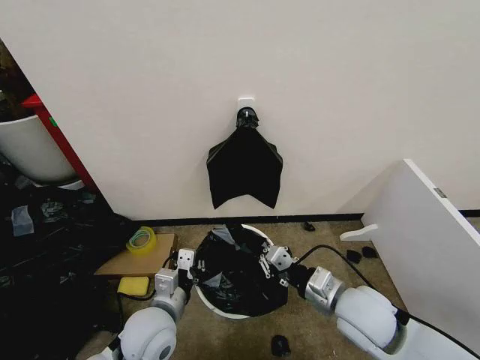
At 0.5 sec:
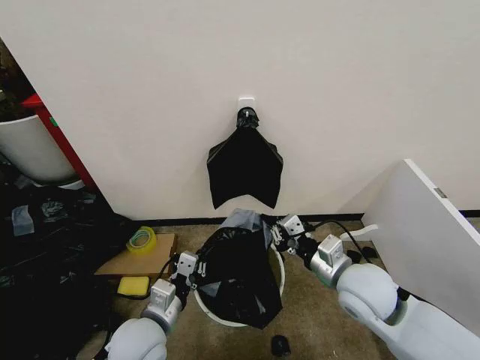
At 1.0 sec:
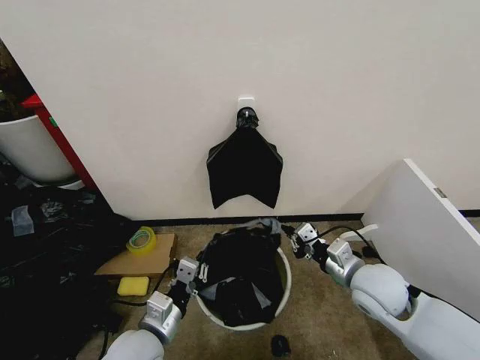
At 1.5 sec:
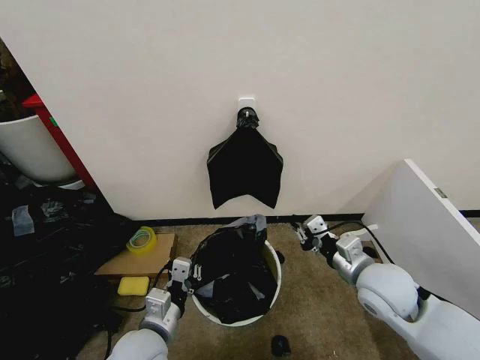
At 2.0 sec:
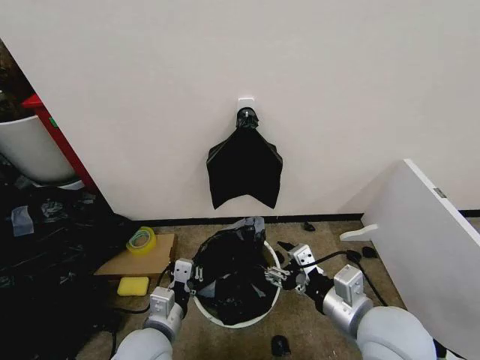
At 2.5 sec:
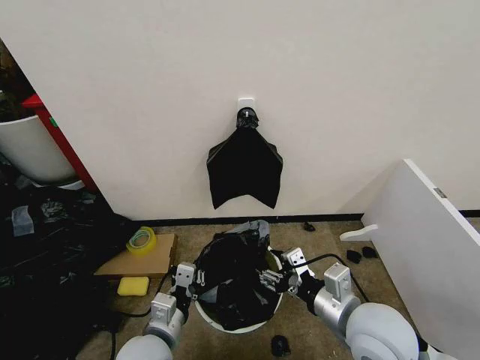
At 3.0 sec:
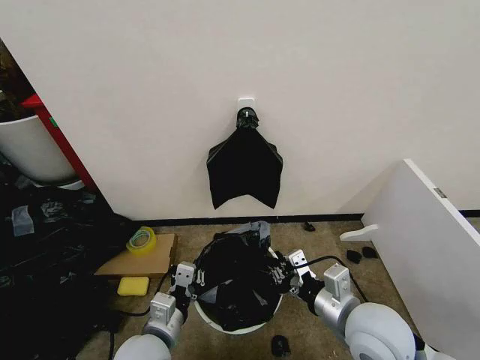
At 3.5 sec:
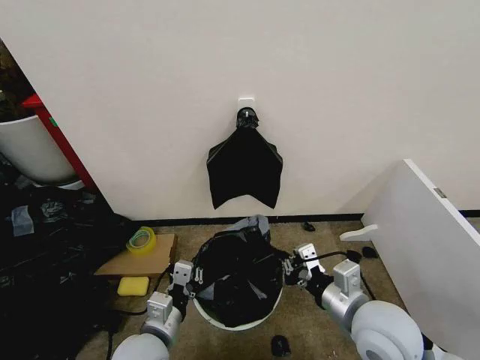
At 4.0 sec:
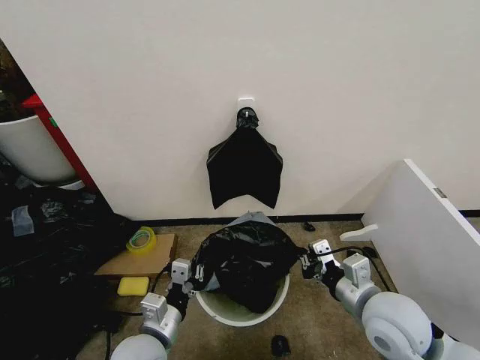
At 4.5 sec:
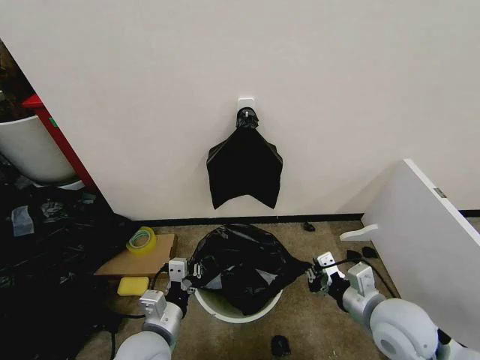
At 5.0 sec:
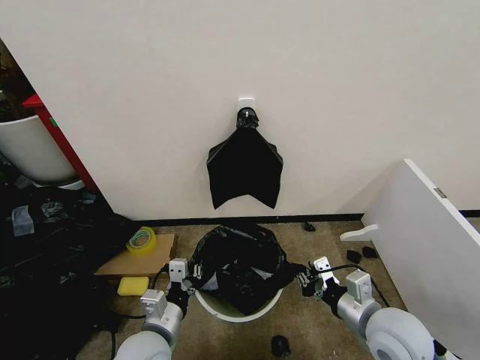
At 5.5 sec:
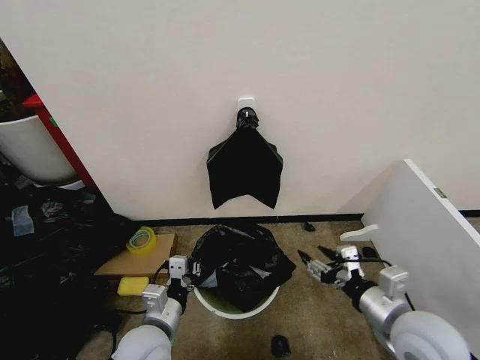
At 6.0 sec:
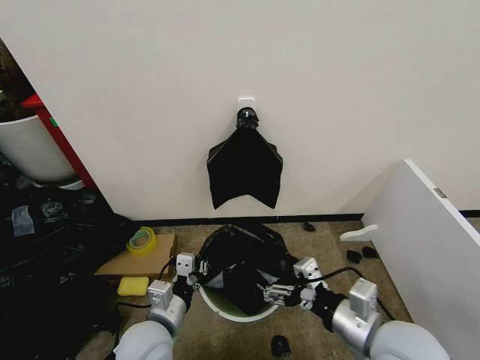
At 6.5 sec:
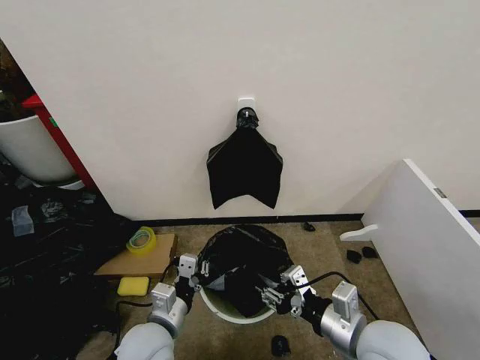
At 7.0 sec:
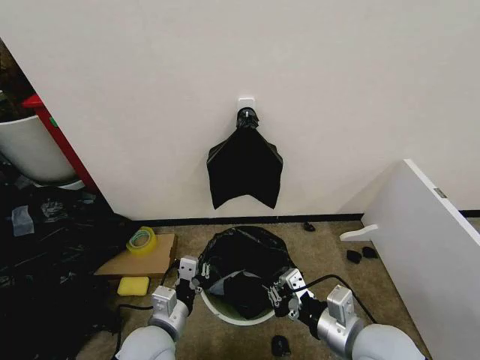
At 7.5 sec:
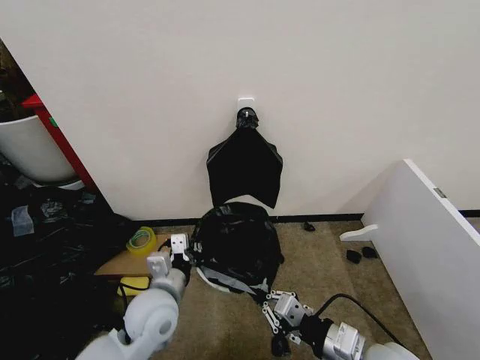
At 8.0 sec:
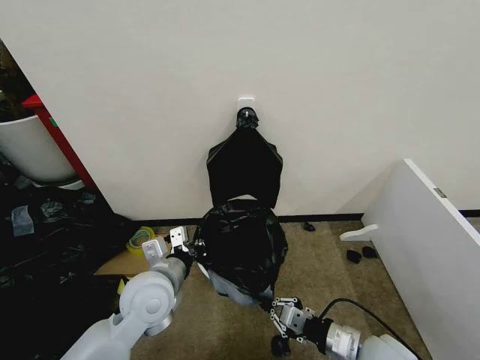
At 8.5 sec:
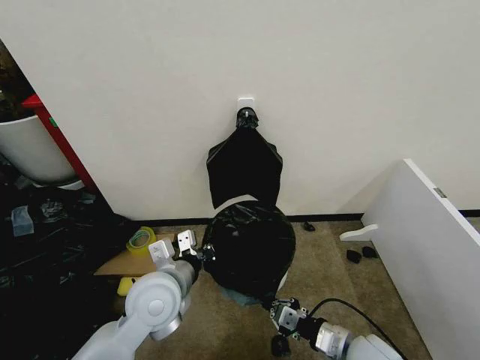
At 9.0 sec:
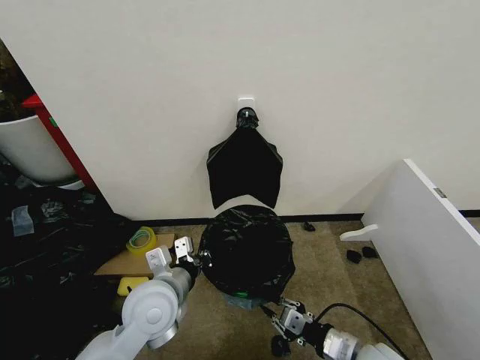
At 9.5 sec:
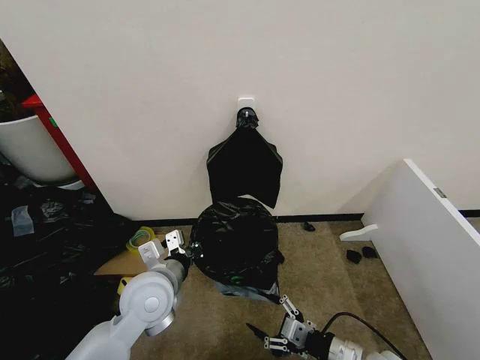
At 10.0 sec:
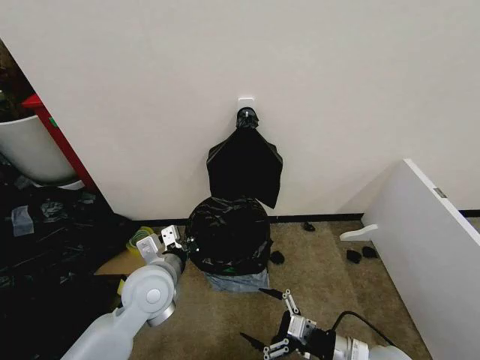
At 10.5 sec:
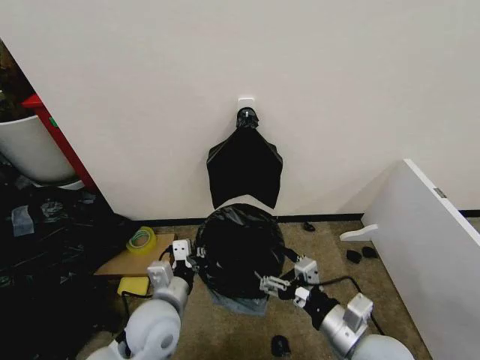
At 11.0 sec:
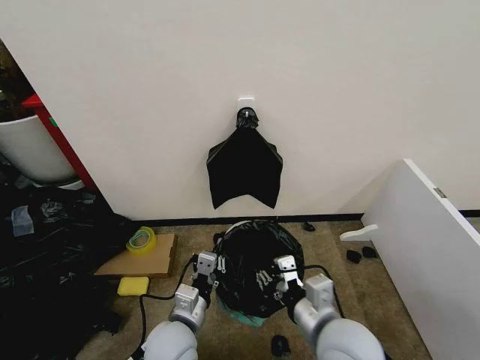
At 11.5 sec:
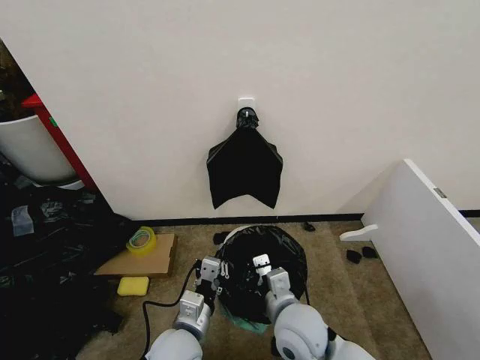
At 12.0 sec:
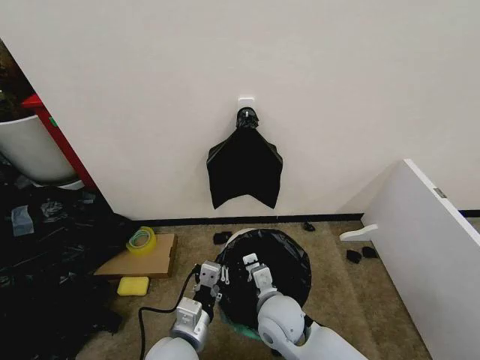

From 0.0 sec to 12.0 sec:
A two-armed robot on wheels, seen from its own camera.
Task of the whole recording: Place the garbage bag over the trash bin.
From 0.0 sec to 2.0 sec: The right gripper shifts some 10 cm upward and backward, and opens up.
From 2.0 sec to 4.0 sec: The right gripper shifts by approximately 5 cm, and closes up.
From 4.0 sec to 6.0 sec: The right gripper is displaced backward by roughly 5 cm, and opens its fingers.
From 6.0 sec to 8.0 sec: The right gripper goes about 10 cm downward, and closes, while the left gripper shifts approximately 10 cm forward and upward.
From 8.0 sec to 10.0 sec: The right gripper opens its fingers.
From 10.0 sec to 12.0 sec: The left gripper heads backward, downward and to the right, covering roughly 15 cm. The right gripper shifts about 20 cm to the left and forward, and closes up.

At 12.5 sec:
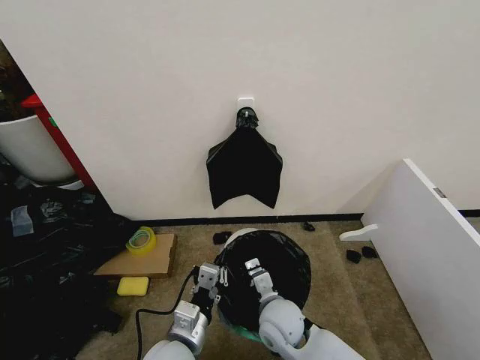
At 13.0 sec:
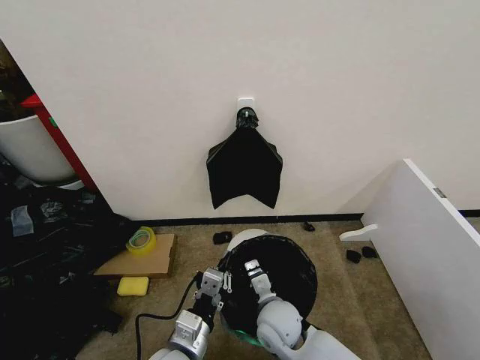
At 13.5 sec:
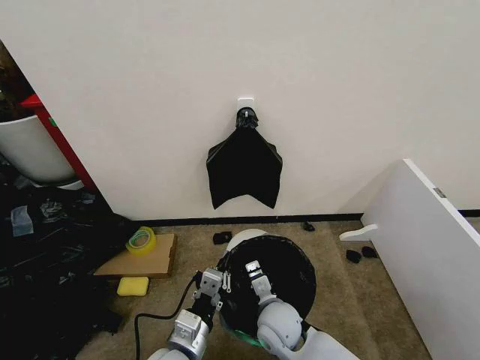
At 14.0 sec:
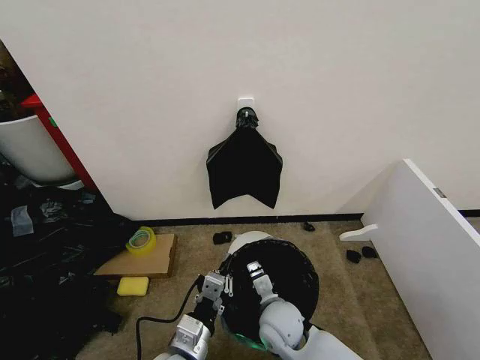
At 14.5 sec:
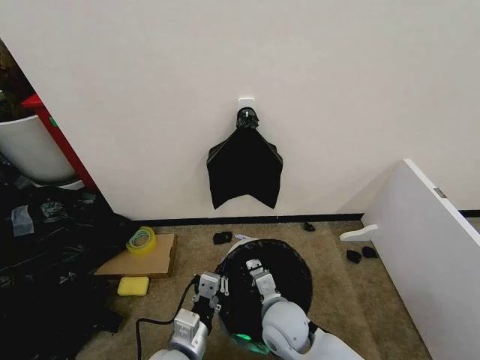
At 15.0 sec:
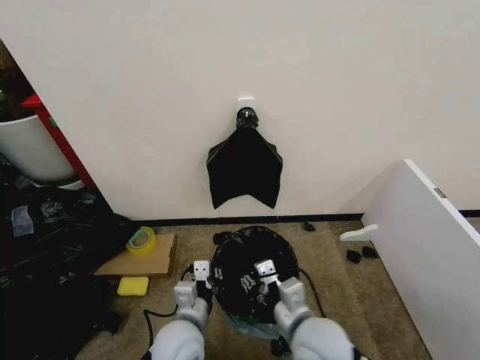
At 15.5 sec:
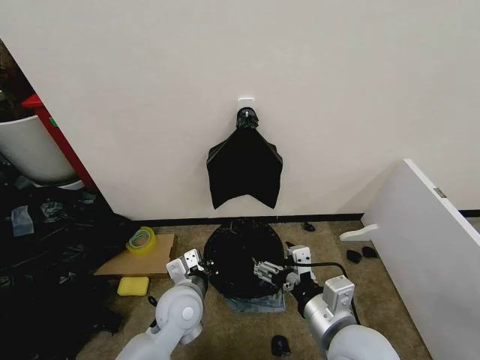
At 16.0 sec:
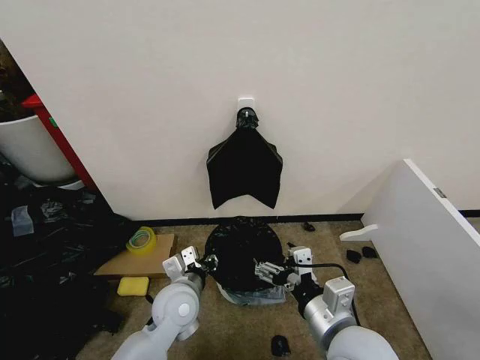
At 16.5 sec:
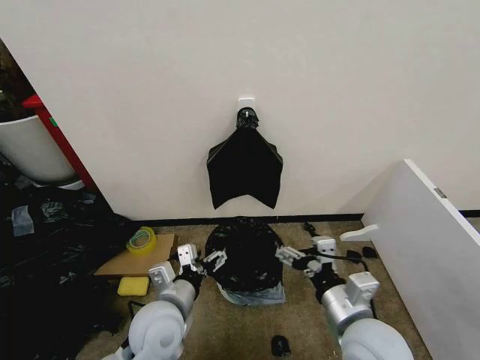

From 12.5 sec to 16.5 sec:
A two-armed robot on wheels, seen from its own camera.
Task of the whole recording: Place the garbage bag over the trash bin.
From 12.5 sec to 14.5 sec: The grippers make only small movements.
From 14.5 sec to 16.5 sec: The left gripper heads forward, covering roughly 5 cm, and opens, while the right gripper goes some 15 cm upward, to the right and backward, and opens its fingers.
